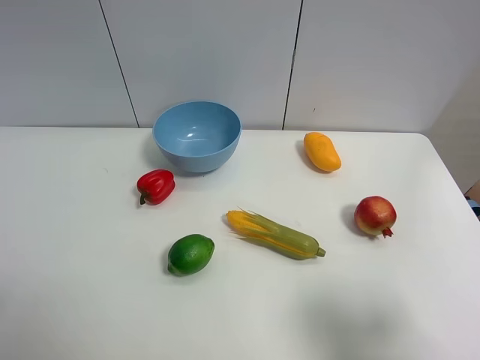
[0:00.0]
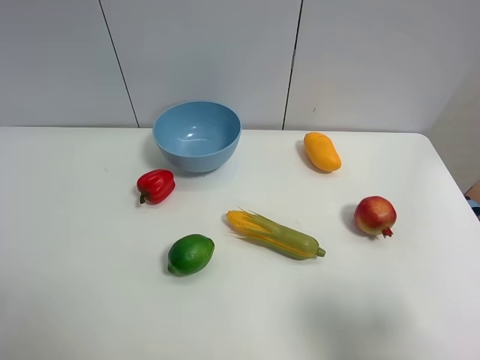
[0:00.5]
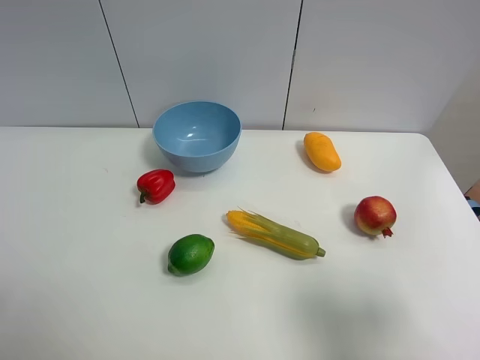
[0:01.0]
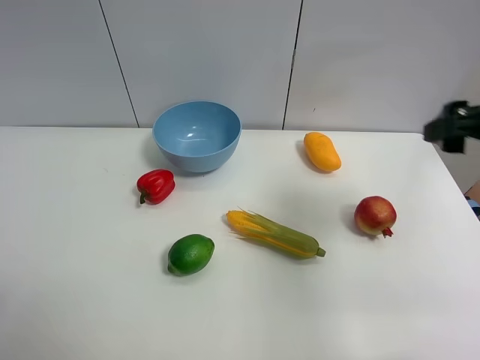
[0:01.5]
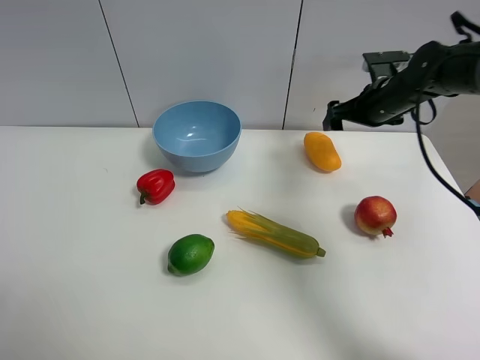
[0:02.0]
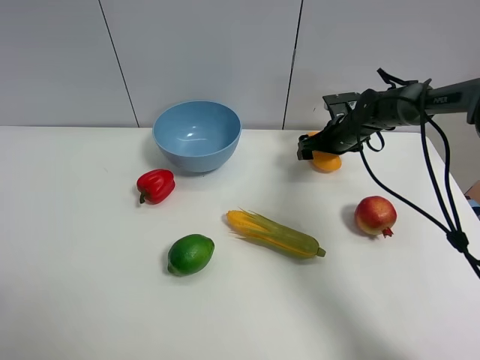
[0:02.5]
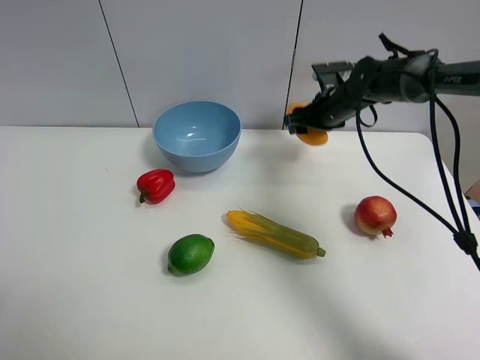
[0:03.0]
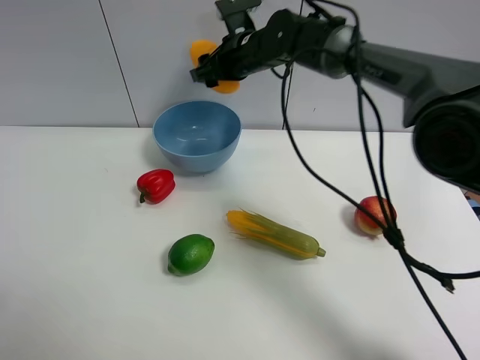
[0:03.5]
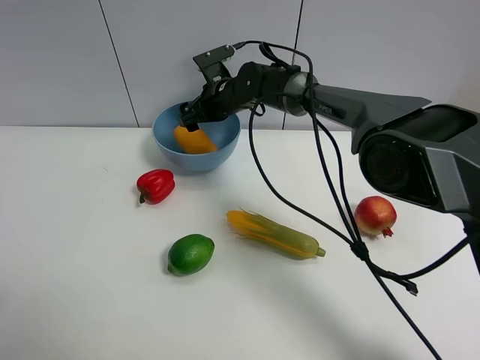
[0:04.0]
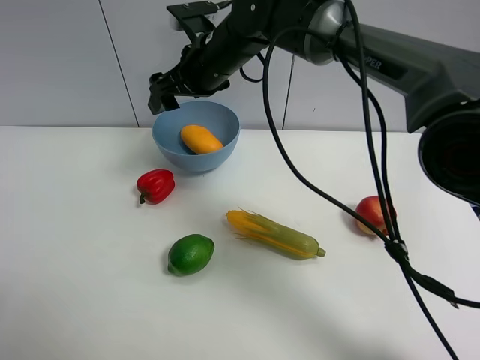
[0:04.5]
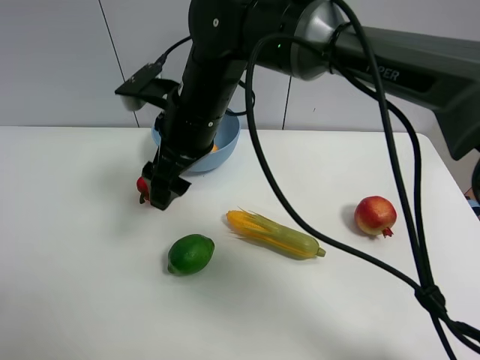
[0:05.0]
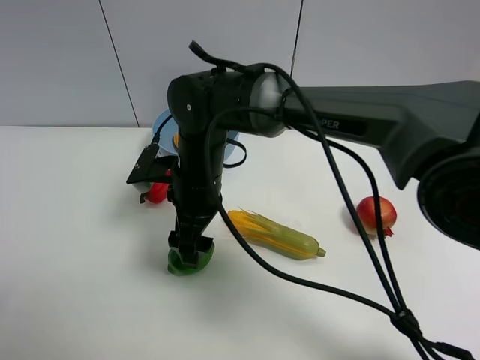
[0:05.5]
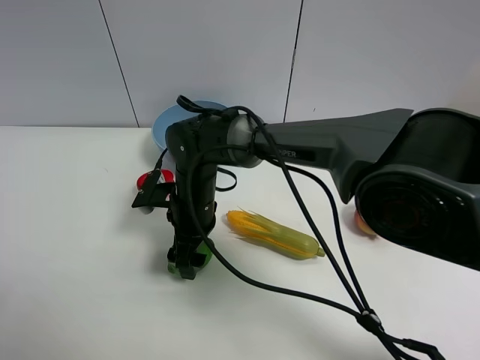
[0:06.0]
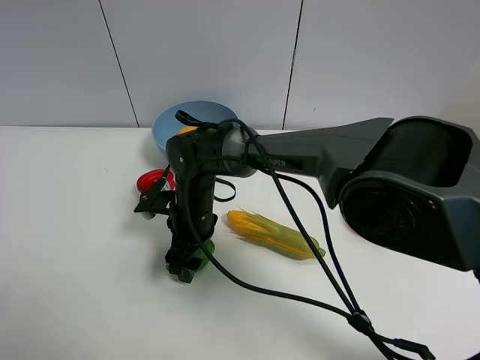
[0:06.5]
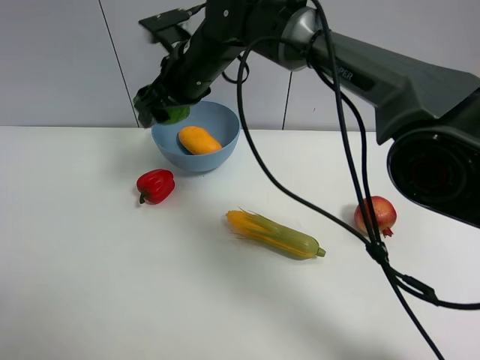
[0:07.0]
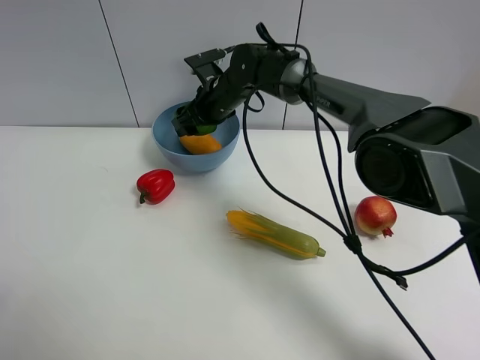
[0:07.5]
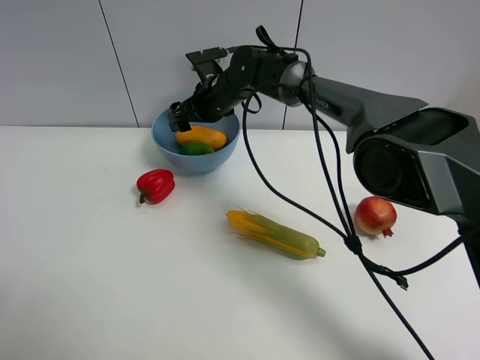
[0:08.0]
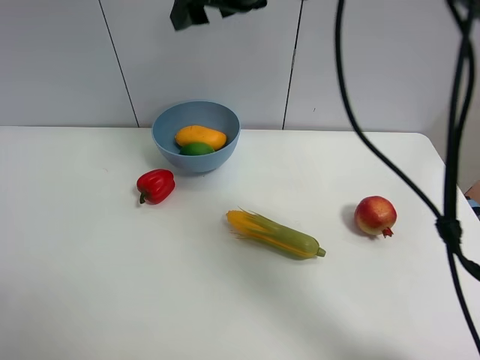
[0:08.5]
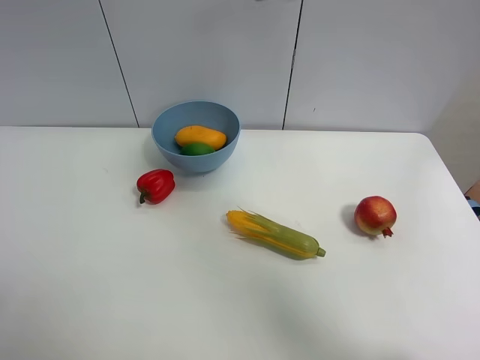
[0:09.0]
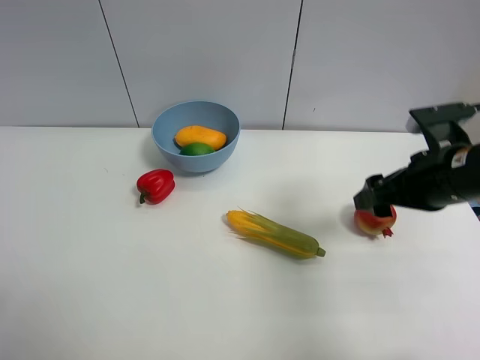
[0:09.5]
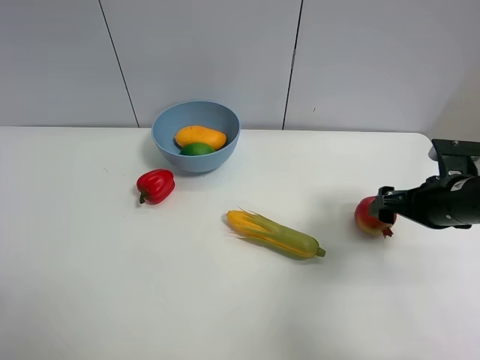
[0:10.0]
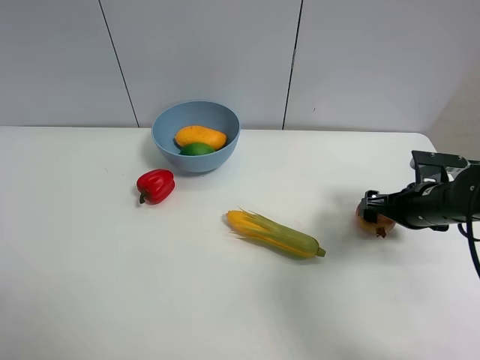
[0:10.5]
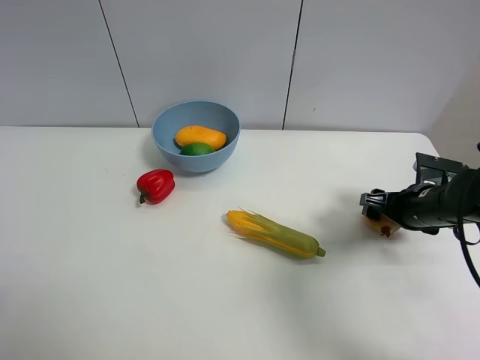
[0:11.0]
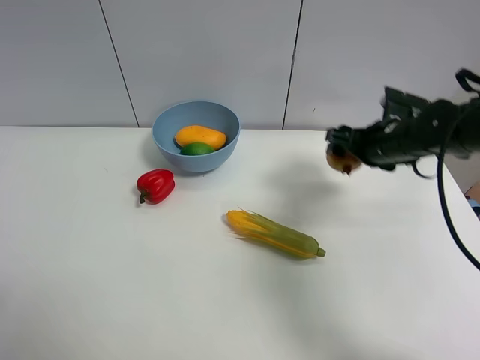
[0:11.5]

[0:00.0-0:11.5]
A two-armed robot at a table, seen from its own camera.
Task of the whole recording: Put the three fruits on the table into a bowl.
Step, 0:00.0 to 0:02.5: Grasp the mango with right gripper.
Step, 0:03.0 to 0:04.0: Place the mango in the blue bowl with right gripper.
Step, 0:04.5 to 0:06.0: Grasp the green lemon with right gripper.
Step, 0:06.5 to 0:07.5: Place the green lemon in the blue bowl with right gripper.
Step, 0:08.0 to 0:11.0: Grasp the pomegranate with right gripper.
0:00.0 to 0:02.0: The right gripper is displaced forward by some 40 cm.
0:02.0 to 0:04.0: The right gripper goes roughly 25 cm to the left, and closes its fingers.
0:04.0 to 0:06.0: The right gripper travels backward by roughly 20 cm.
0:06.0 to 0:07.5: The right gripper travels forward by approximately 20 cm, and closes its fingers.
0:07.5 to 0:09.5: The right gripper goes some 35 cm to the right and backward.
0:09.5 to 0:11.5: The right gripper goes roughly 15 cm forward.

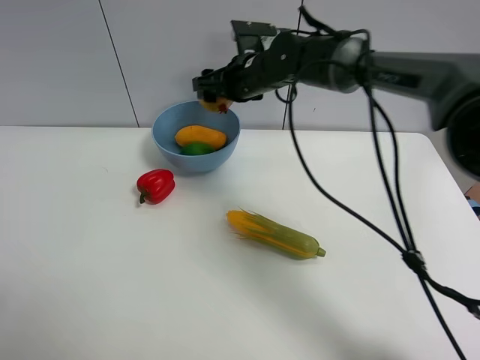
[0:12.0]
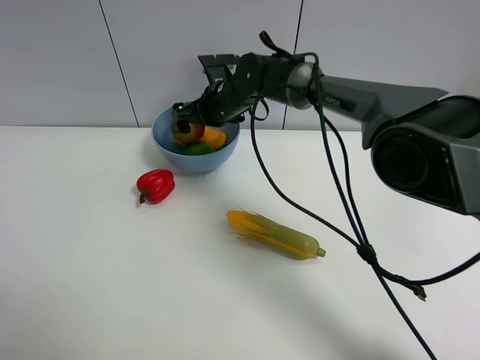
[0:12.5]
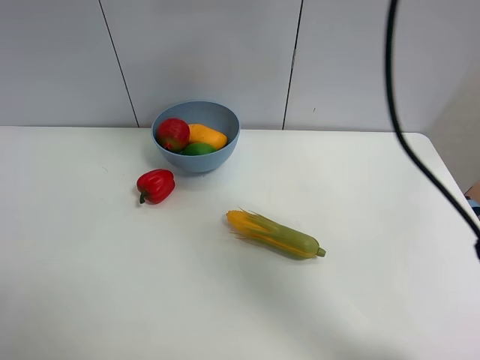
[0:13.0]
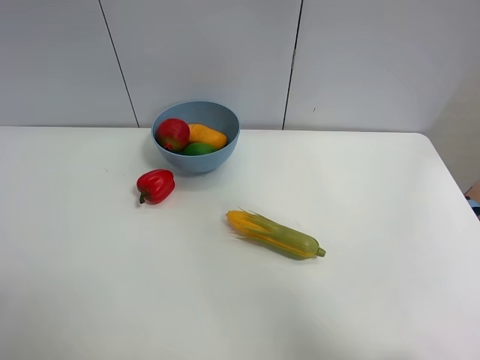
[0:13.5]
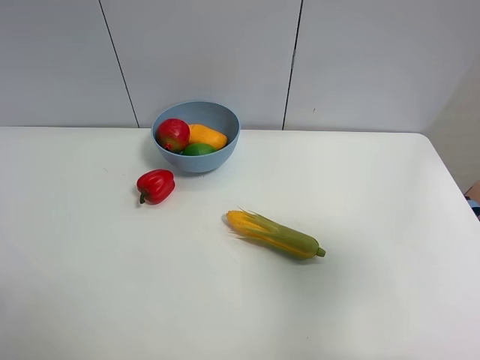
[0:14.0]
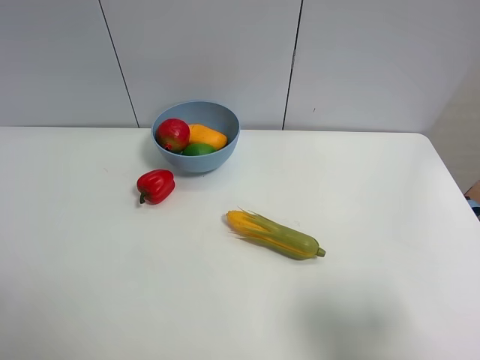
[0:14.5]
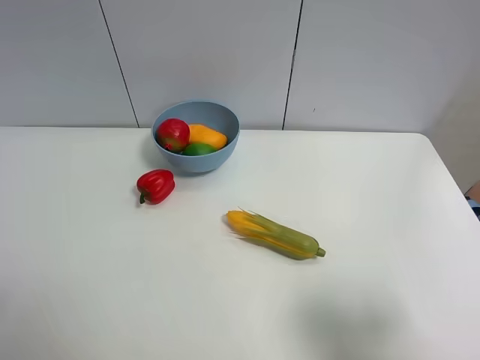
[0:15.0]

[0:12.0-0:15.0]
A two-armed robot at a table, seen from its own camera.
Task of the whole recording: Put the three fruits on the table into a bowl.
0:12.0 to 0:13.5: The right gripper travels upward, backward and to the right by roughly 40 cm, and opens up.
0:13.5 to 0:15.0: The right gripper goes roughly 35 cm backward, downward and to the right.
